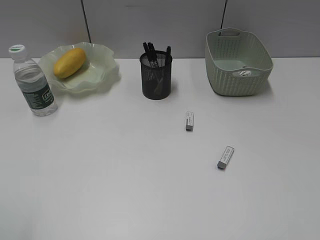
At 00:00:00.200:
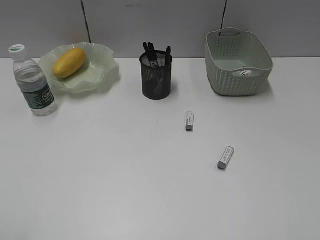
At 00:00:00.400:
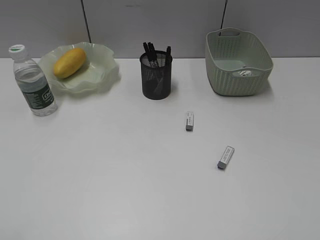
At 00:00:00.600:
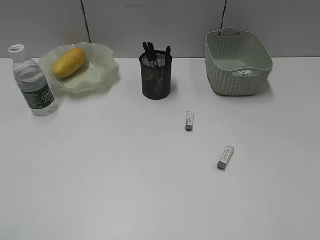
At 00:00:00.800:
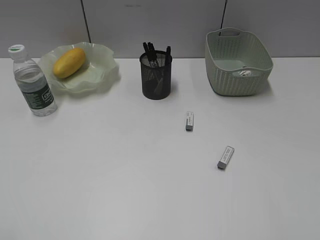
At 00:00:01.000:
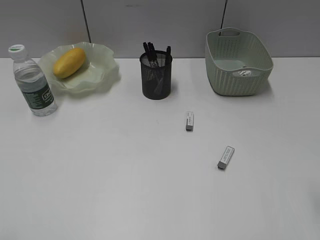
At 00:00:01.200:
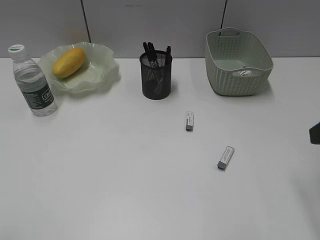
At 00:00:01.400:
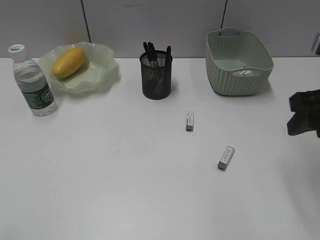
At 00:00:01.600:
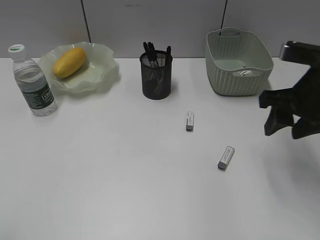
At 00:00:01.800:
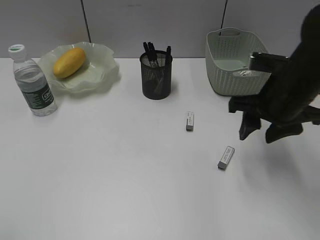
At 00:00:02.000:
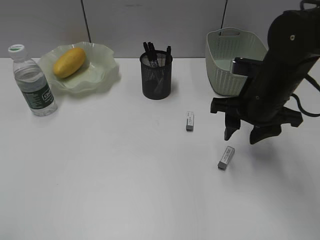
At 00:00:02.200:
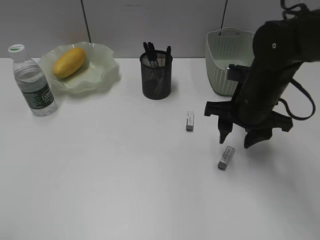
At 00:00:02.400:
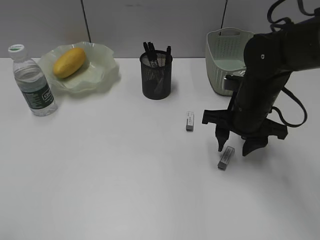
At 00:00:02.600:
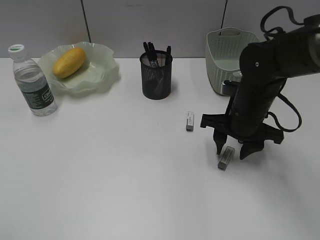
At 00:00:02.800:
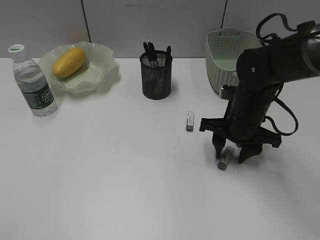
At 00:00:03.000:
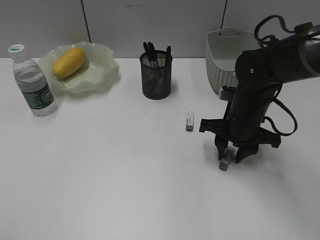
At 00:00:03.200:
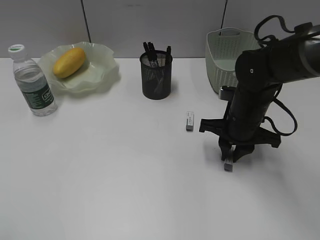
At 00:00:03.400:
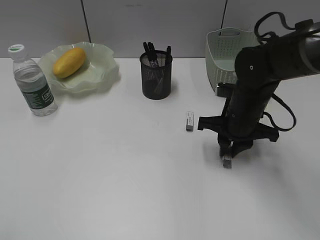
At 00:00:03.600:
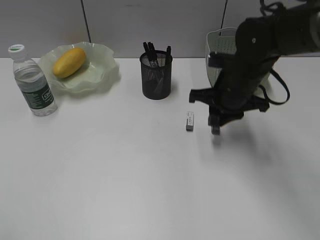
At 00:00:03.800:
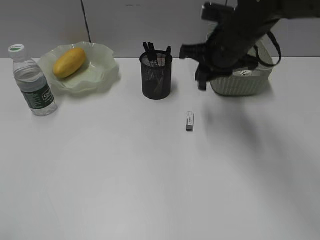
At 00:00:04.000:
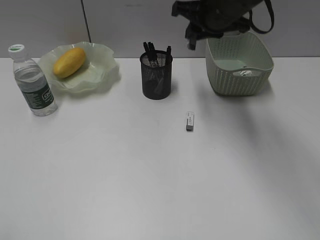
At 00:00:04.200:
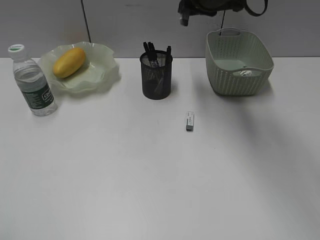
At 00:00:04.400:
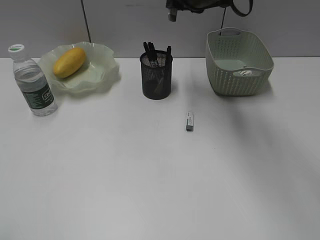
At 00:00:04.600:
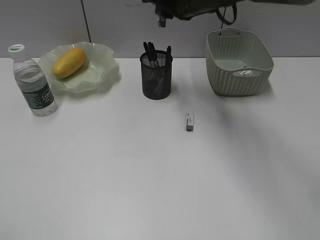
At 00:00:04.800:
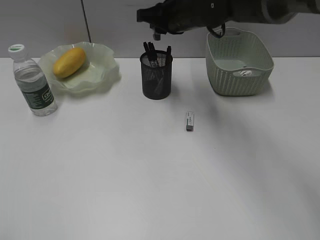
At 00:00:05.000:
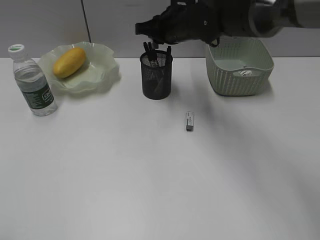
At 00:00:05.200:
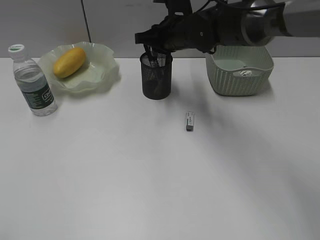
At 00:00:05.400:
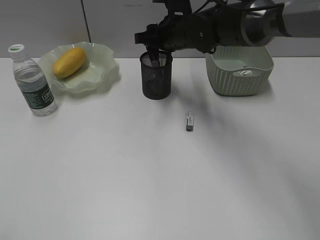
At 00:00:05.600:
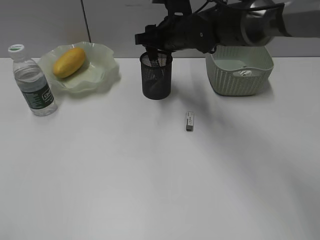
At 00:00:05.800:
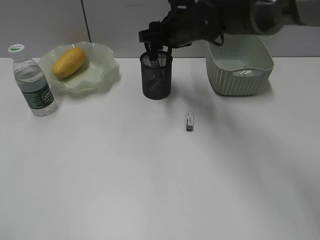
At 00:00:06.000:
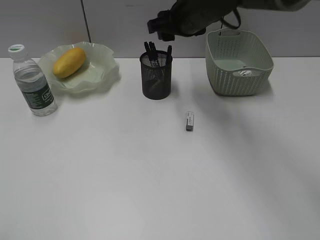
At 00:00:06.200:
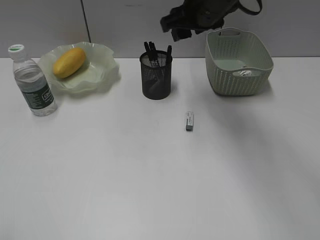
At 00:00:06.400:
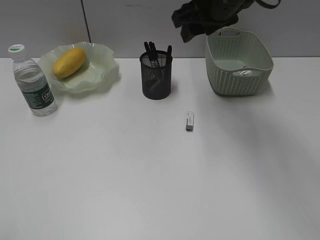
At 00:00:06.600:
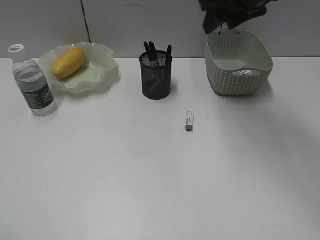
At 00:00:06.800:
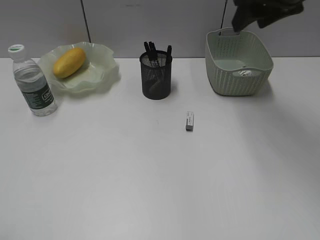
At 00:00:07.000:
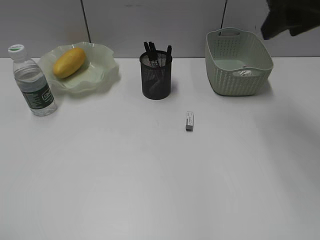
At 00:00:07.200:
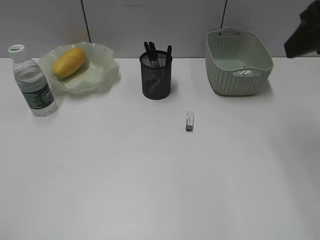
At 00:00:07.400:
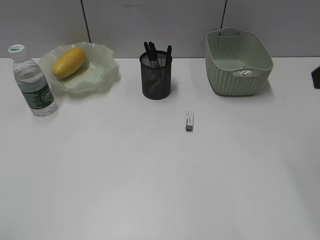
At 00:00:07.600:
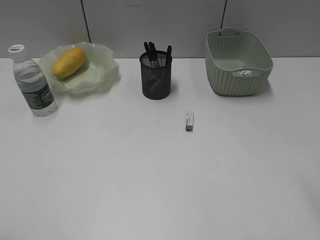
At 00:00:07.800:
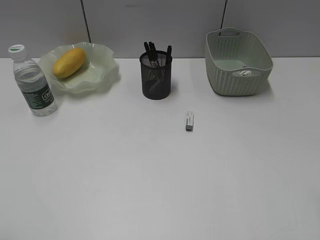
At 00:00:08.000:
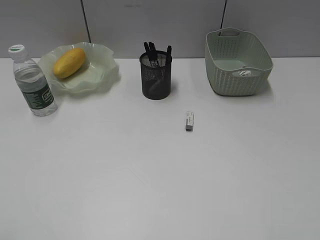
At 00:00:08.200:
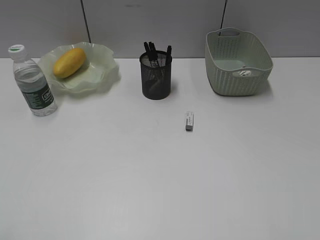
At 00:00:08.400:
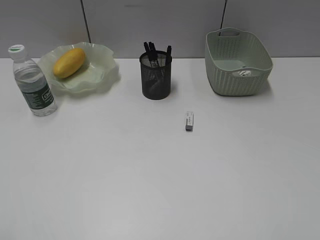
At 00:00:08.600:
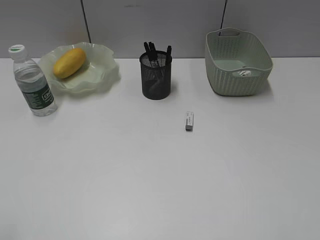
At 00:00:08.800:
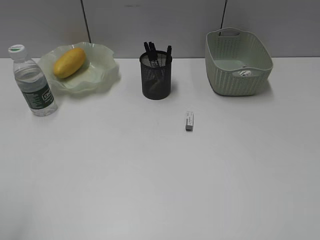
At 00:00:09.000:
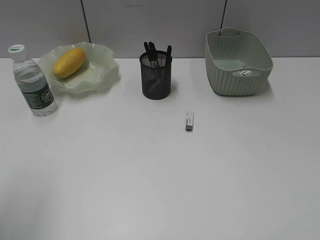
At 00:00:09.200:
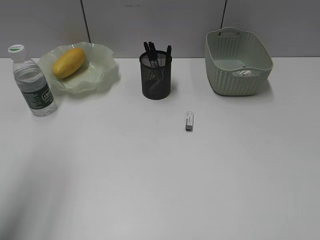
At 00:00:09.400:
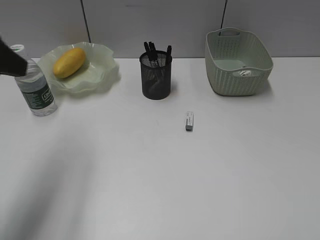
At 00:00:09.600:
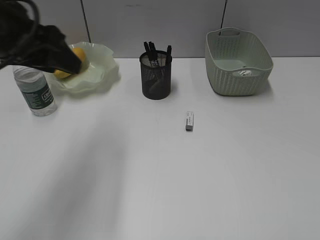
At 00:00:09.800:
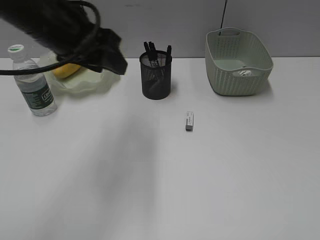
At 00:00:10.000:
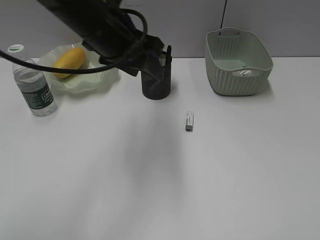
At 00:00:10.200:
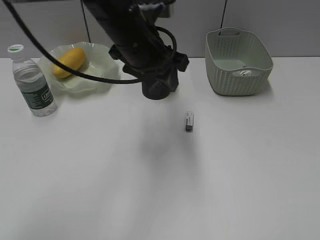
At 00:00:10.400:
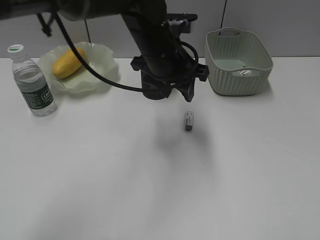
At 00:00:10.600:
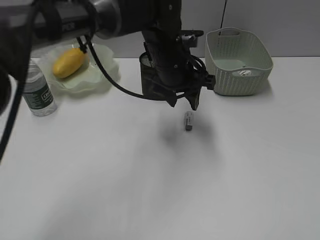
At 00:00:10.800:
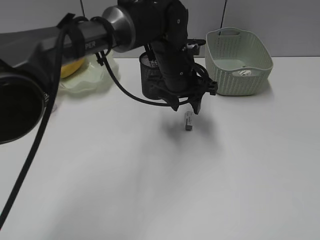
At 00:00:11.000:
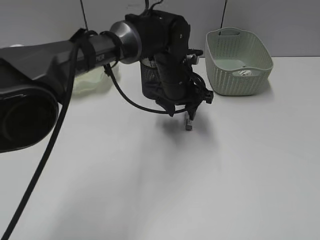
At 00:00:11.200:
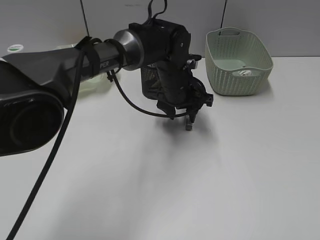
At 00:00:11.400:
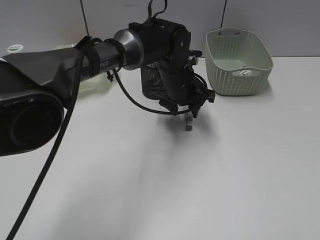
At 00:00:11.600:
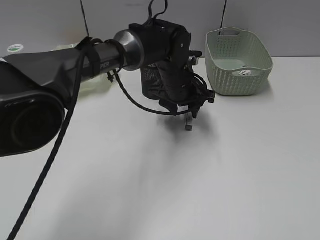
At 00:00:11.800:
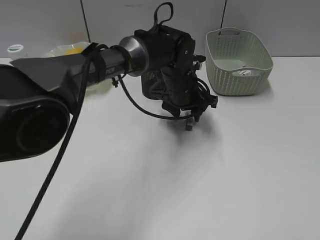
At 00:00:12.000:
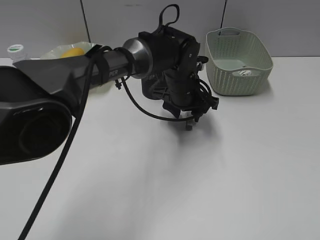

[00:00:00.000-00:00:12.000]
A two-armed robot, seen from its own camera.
Step, 00:00:00.000 to 00:00:03.200: Grasp the eraser with right gripper.
Step, 00:00:03.400 to 00:00:05.400: Place the eraser in pen holder with right gripper.
00:00:00.000 to 00:00:01.600: The right gripper moves forward, about 25 cm.
00:00:01.600 to 00:00:03.000: The right gripper shifts roughly 15 cm downward and to the left.
00:00:03.000 to 00:00:04.400: The right gripper is displaced upward, forward and to the left by roughly 20 cm.
00:00:04.400 to 00:00:06.000: The right gripper opens its fingers.
00:00:06.000 to 00:00:07.600: The right gripper heads backward and to the right, covering some 35 cm.
00:00:07.600 to 00:00:09.000: The left gripper moves forward, about 10 cm.
00:00:09.000 to 00:00:10.400: The left gripper is displaced to the right and forward by about 40 cm.
00:00:10.400 to 00:00:12.000: The left gripper moves downward, some 10 cm.

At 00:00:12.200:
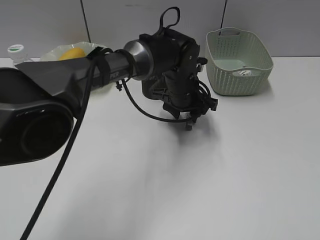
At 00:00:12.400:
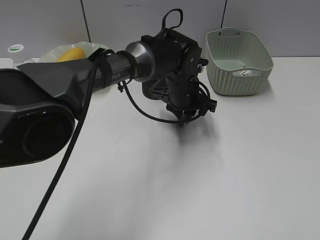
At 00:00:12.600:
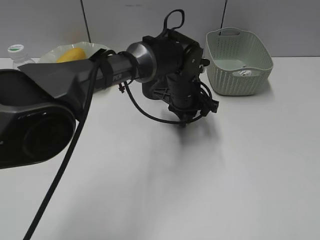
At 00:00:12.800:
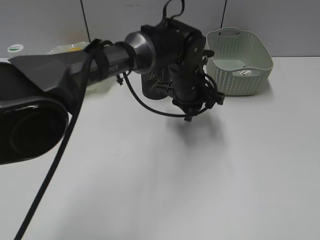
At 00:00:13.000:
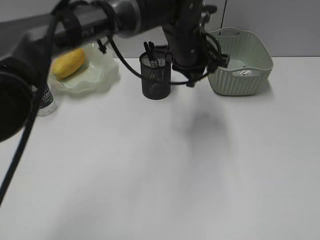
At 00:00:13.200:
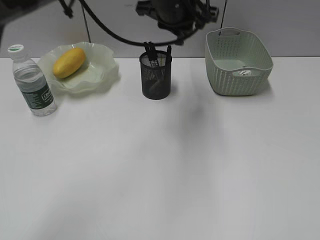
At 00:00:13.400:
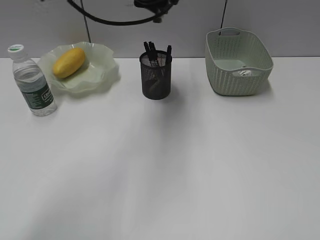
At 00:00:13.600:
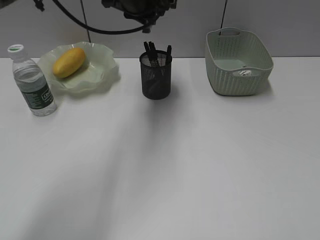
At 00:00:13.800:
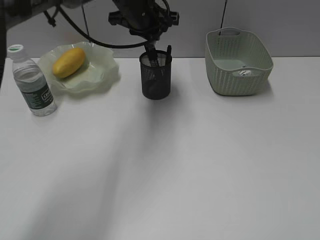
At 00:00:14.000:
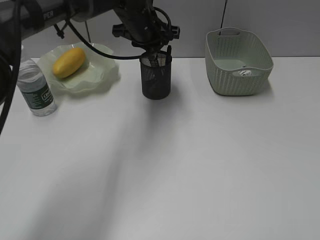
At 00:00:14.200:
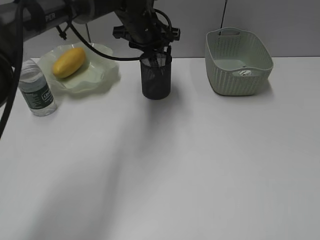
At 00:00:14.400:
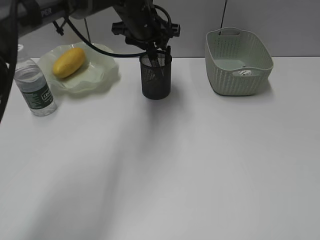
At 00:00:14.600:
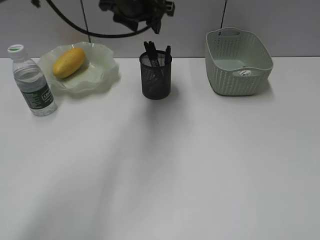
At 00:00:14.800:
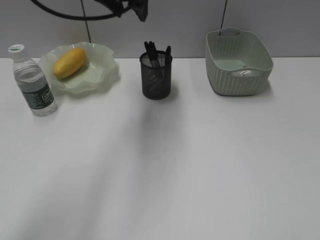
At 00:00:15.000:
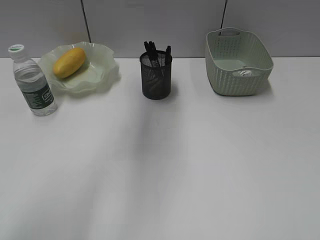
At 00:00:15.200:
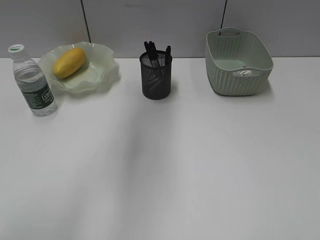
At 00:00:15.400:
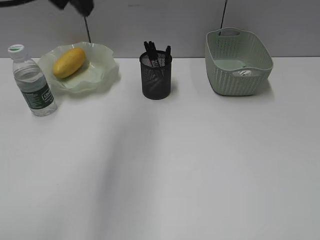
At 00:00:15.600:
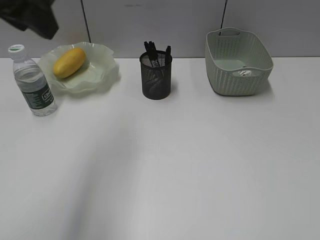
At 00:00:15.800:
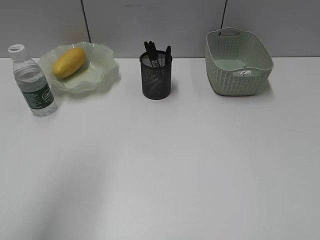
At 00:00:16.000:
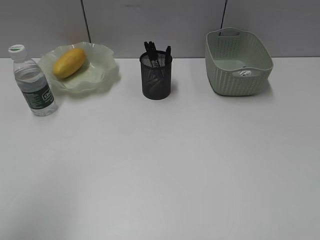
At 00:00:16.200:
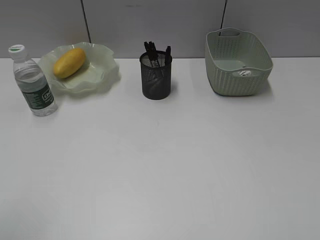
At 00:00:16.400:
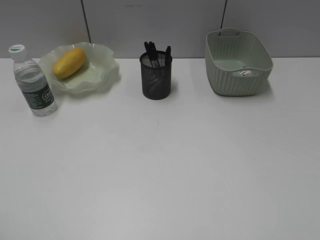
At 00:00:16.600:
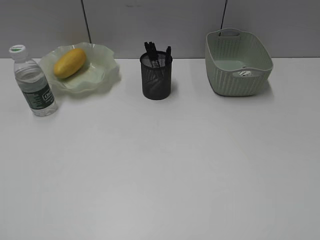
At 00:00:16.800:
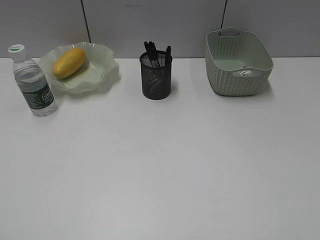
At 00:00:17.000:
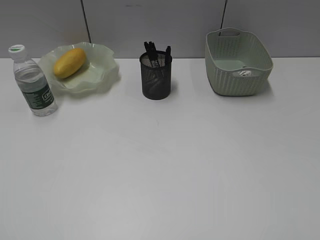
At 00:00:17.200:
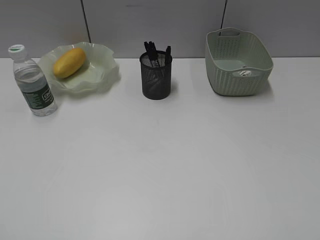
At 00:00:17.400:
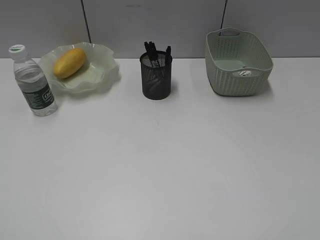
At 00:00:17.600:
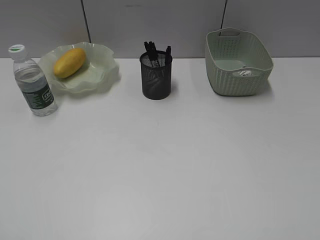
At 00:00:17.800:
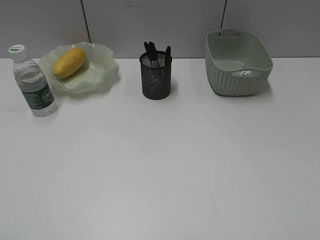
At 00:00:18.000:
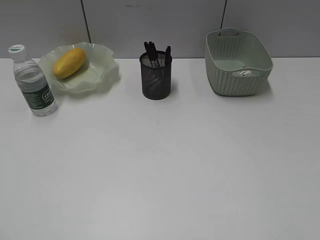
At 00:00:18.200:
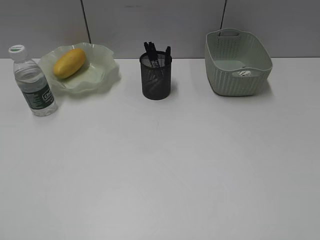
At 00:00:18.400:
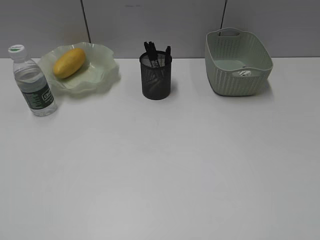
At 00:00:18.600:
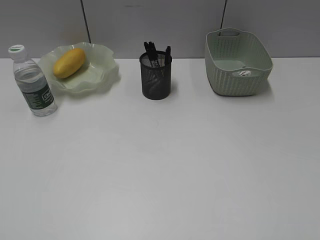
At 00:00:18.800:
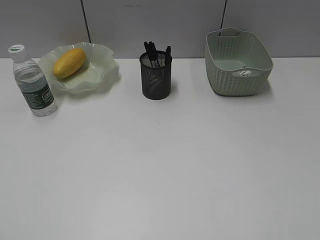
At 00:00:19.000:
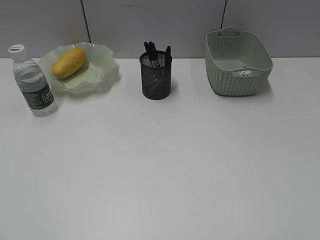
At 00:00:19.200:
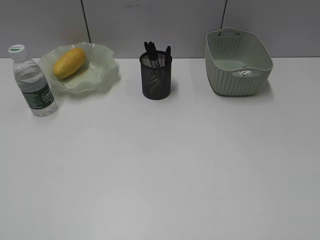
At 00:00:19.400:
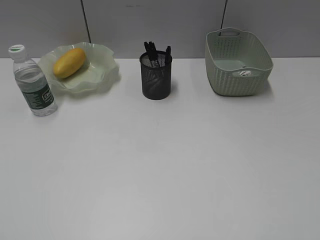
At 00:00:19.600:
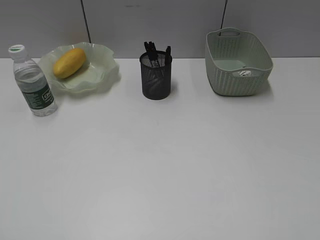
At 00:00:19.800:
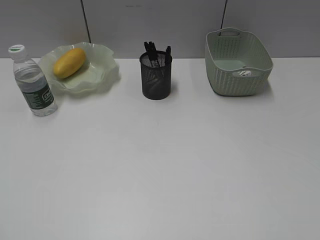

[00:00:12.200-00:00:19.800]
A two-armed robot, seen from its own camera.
Step, 00:00:12.600 to 00:00:14.400: Place the eraser in pen holder with left gripper.
00:00:12.200 to 00:00:13.800: The left gripper shifts roughly 15 cm upward, to the left and forward, and closes its fingers.
00:00:13.800 to 00:00:15.200: The left gripper moves upward, backward and to the left, roughly 20 cm, and opens its fingers.
00:00:15.200 to 00:00:16.800: The left gripper moves backward and to the left, some 40 cm.
00:00:18.200 to 00:00:19.800: Neither gripper changes place.
